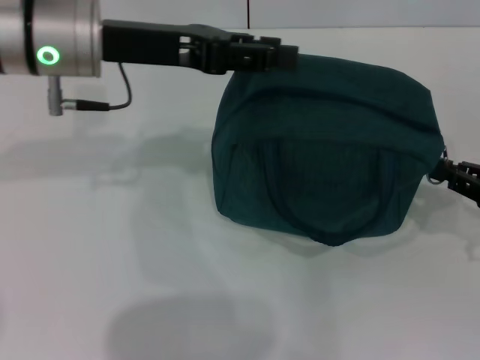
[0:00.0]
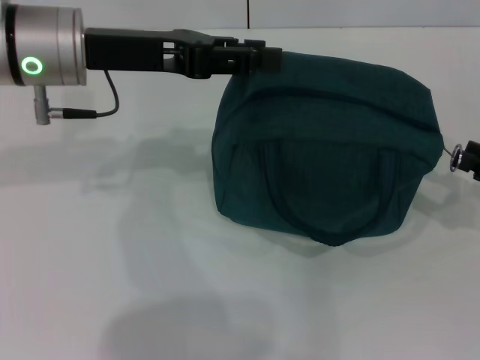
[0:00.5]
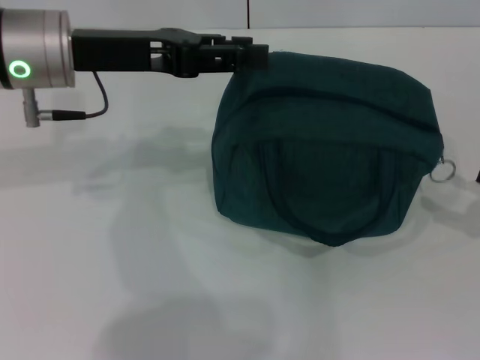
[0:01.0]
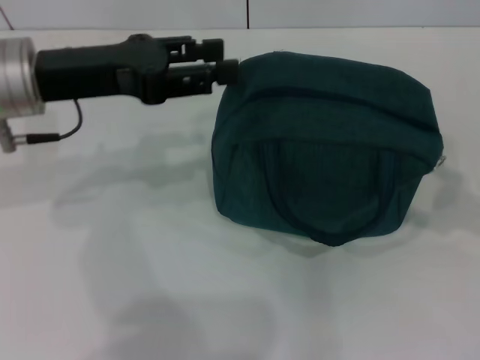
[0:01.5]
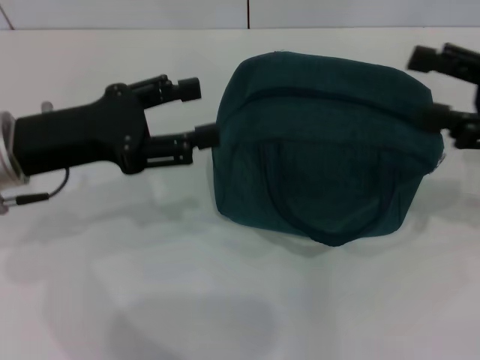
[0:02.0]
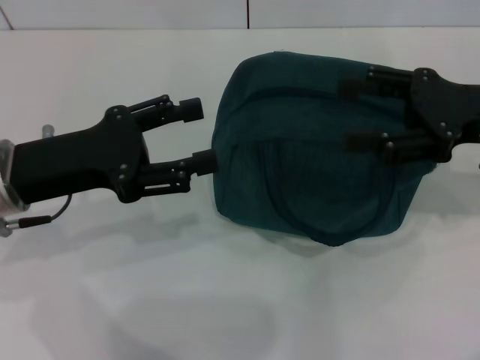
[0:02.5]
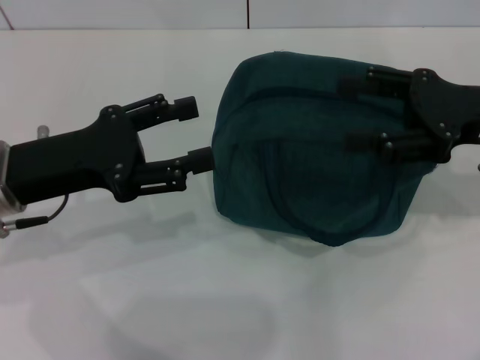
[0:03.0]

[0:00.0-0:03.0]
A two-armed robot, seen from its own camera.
0:00.0 to 0:01.5: The right gripper goes about 5 cm upward, and opens its fingers. The left gripper ends up about 5 cm from where it was.
0:01.5 to 0:03.0: The left gripper shifts approximately 10 cm backward and downward; the right gripper shifts about 15 cm to the left and forward.

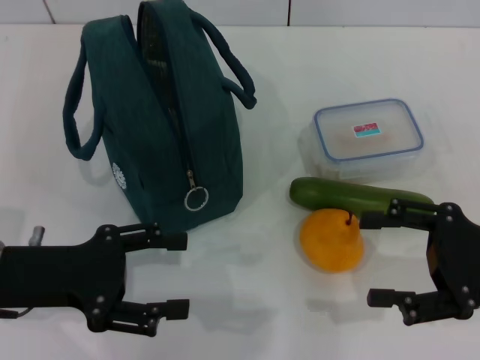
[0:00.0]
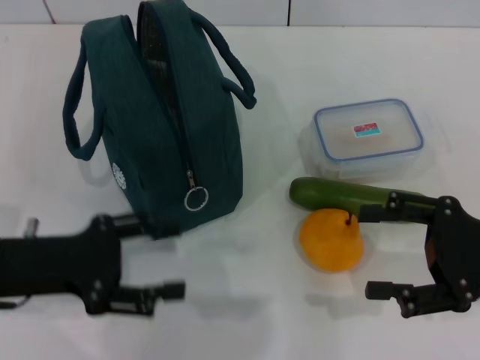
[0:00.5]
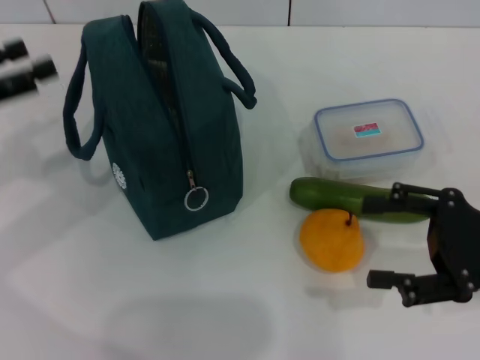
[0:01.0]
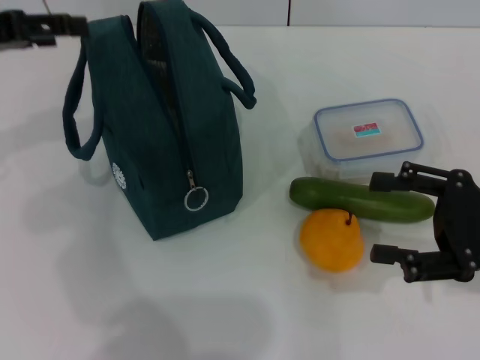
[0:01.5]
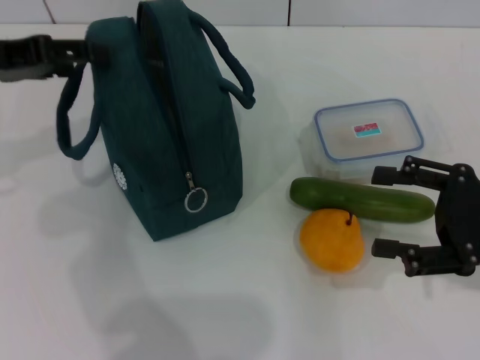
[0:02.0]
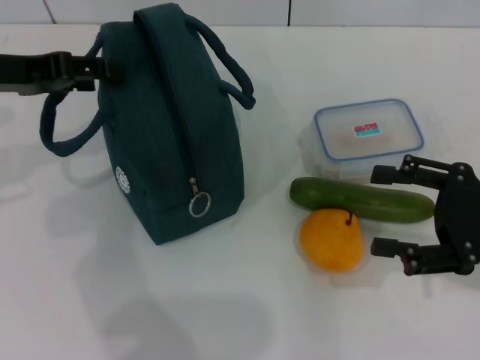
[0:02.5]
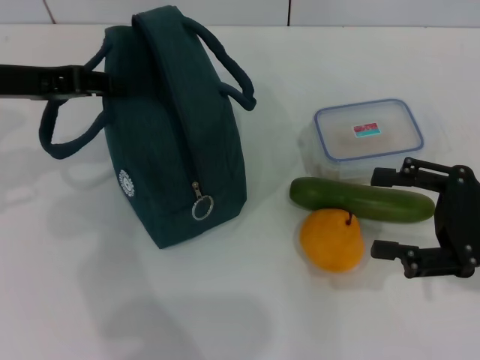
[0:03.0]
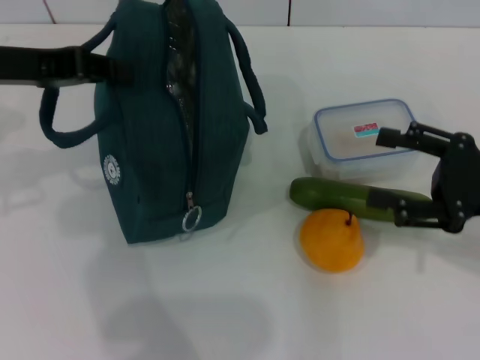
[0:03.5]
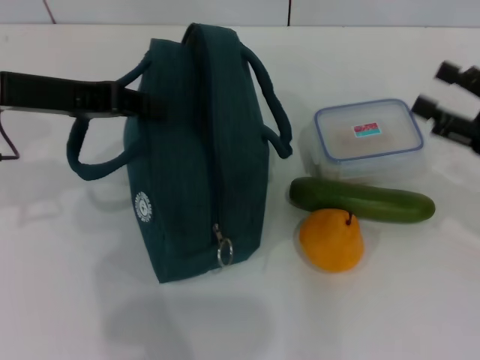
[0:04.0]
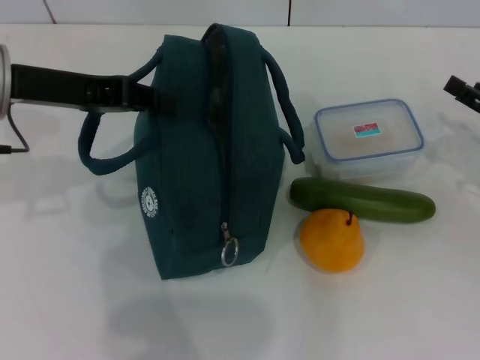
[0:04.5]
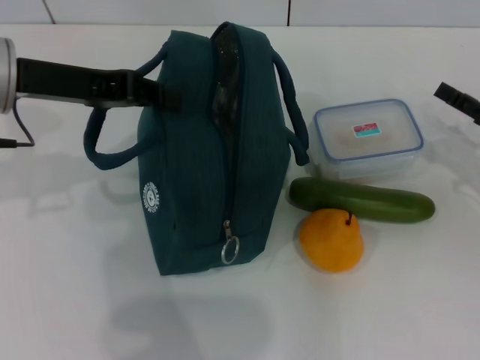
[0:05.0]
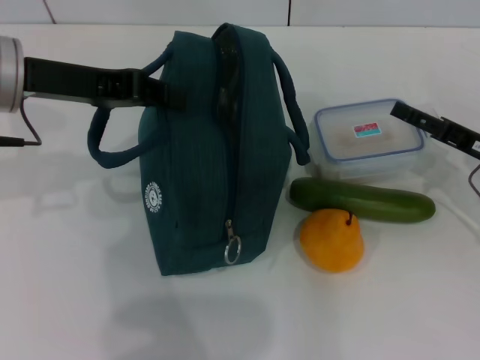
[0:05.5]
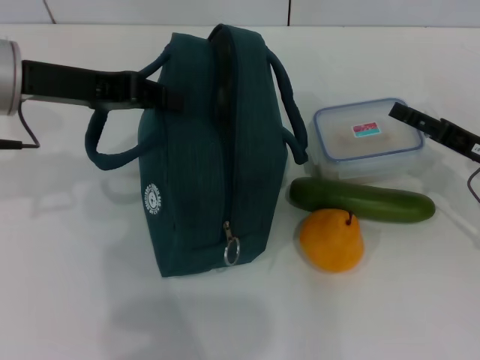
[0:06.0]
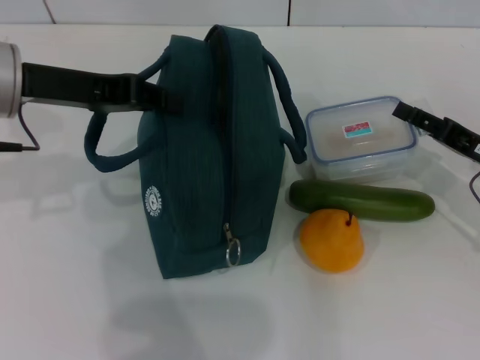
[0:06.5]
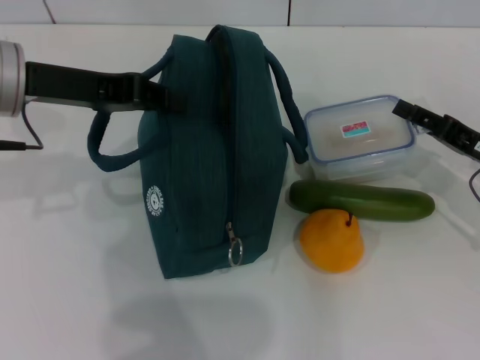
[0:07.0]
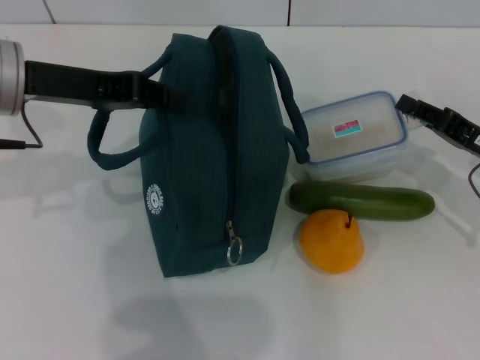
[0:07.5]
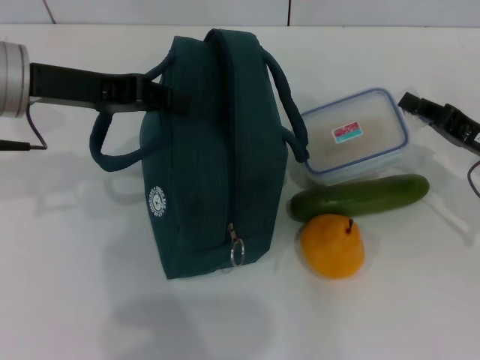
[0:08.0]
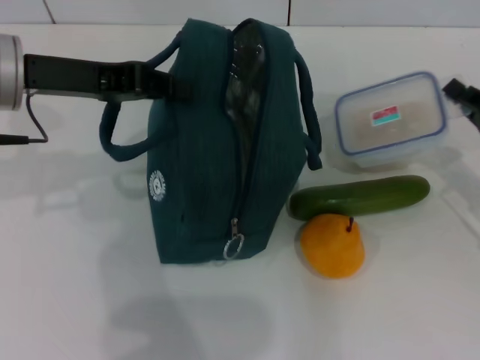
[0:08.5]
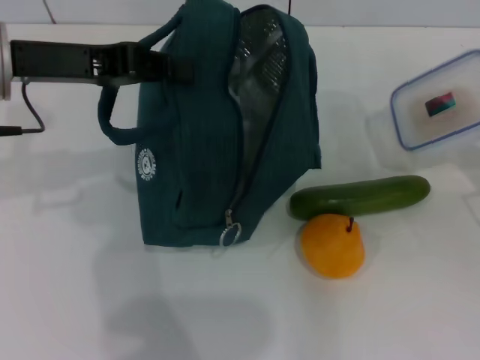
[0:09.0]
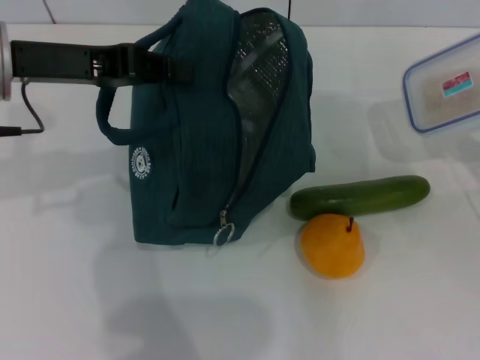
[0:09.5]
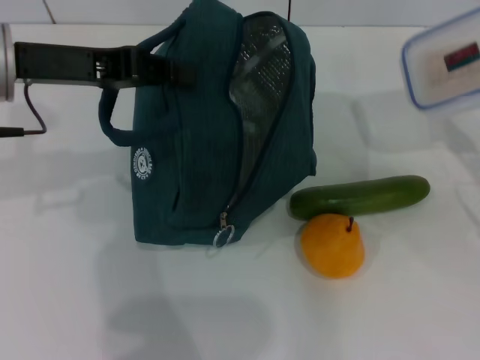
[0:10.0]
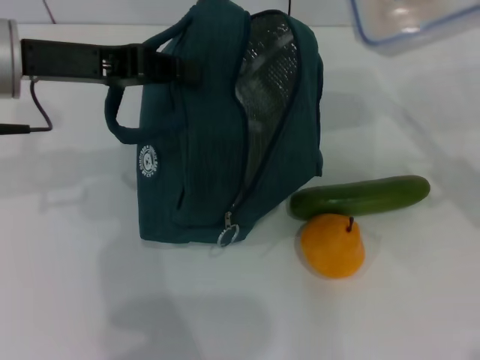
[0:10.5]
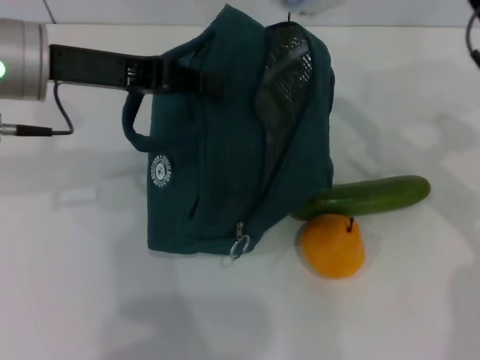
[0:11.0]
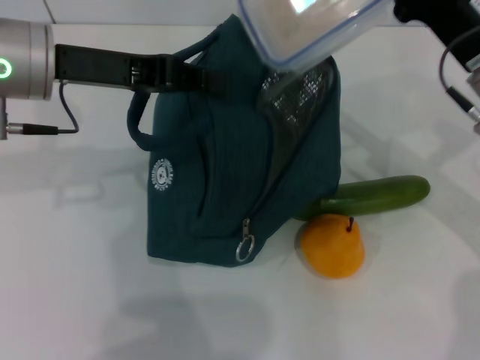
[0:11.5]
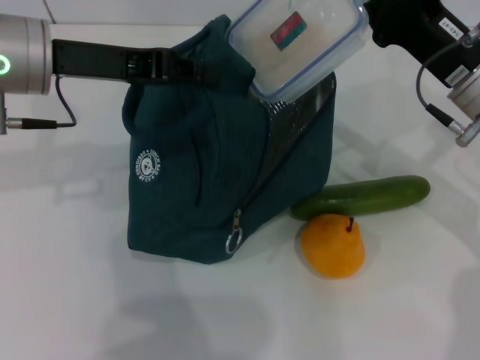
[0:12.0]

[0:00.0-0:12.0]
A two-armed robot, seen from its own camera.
Step, 0:00.0 to 0:03.5: Hold the lunch bag with your left hand.
Step, 0:04.0 to 0:08.0: Pick up the lunch box with your right hand.
0:00.0 to 0:02.0: The left gripper is displaced upward and forward by roughly 15 cm.
0:02.0 to 0:04.0: The left gripper shifts roughly 5 cm to the right, and closes its fingers.
0:04.0 to 0:06.0: The right gripper moves downward, about 5 cm.
0:06.0 to 0:08.0: The right gripper closes.
0:08.0 to 0:10.0: The right gripper shifts by some 5 cm.
0:10.0 to 0:12.0: The right gripper shifts approximately 15 cm to the left and forward.

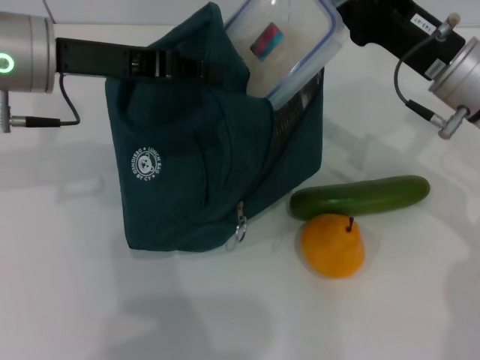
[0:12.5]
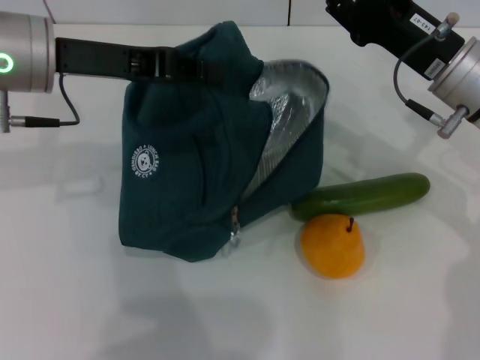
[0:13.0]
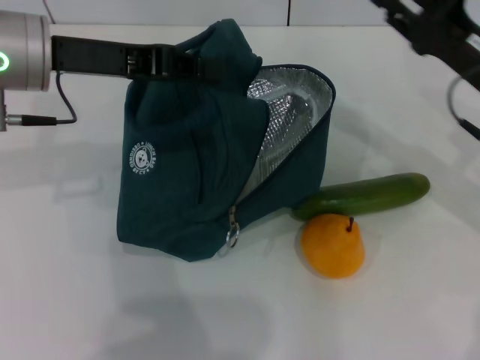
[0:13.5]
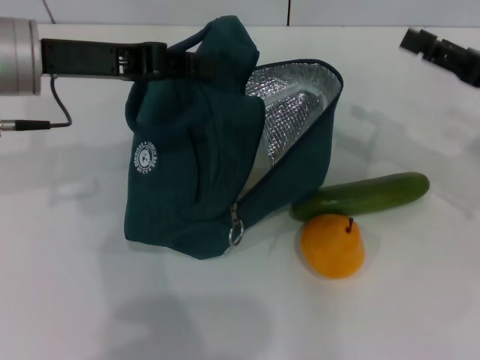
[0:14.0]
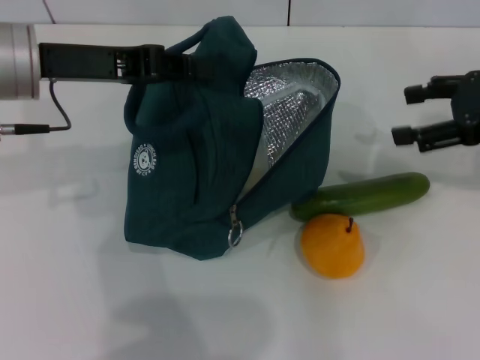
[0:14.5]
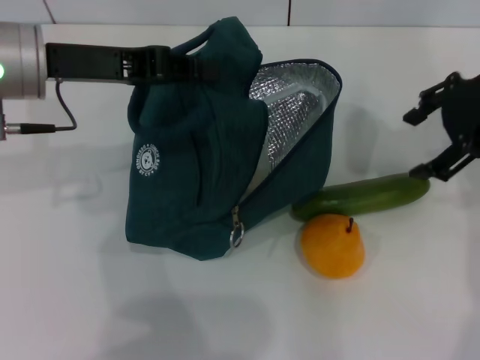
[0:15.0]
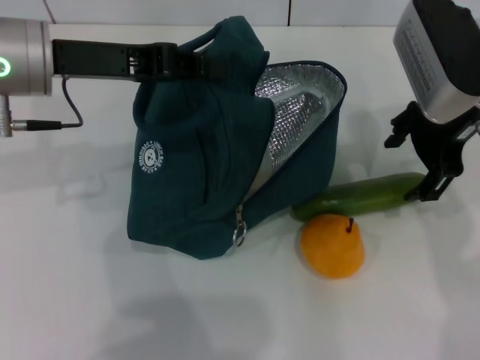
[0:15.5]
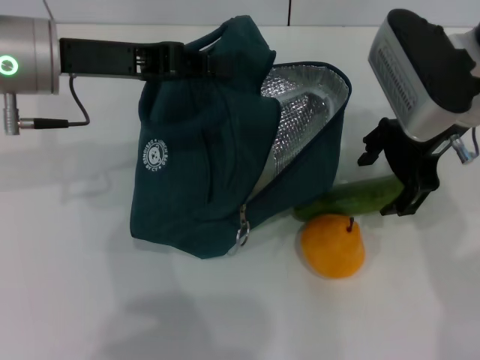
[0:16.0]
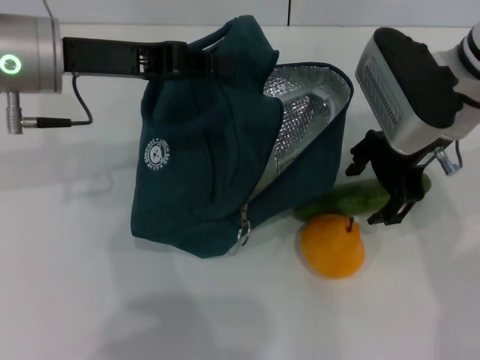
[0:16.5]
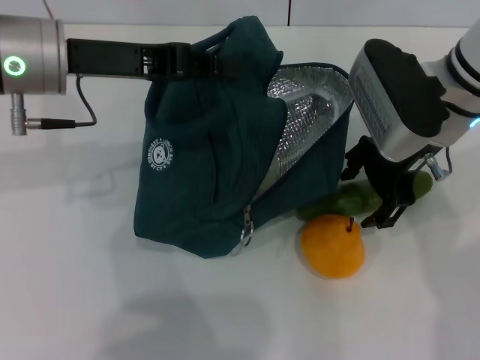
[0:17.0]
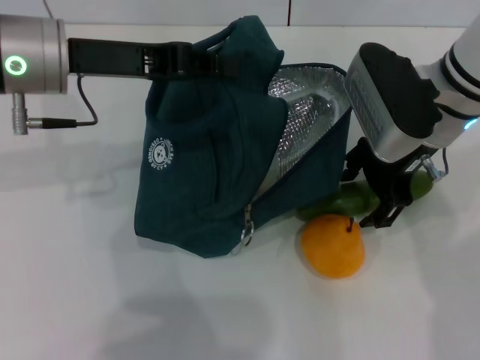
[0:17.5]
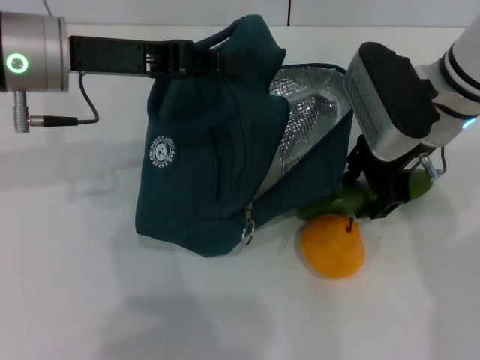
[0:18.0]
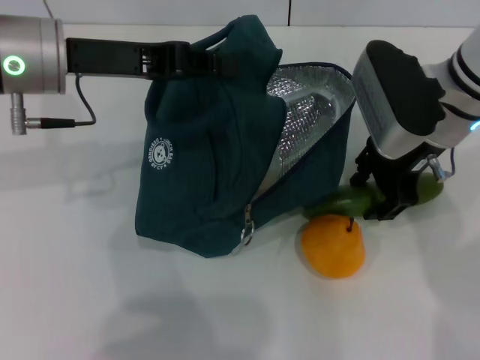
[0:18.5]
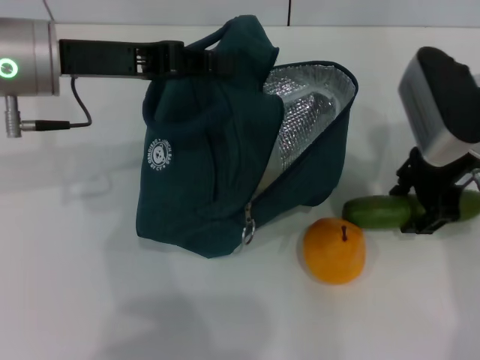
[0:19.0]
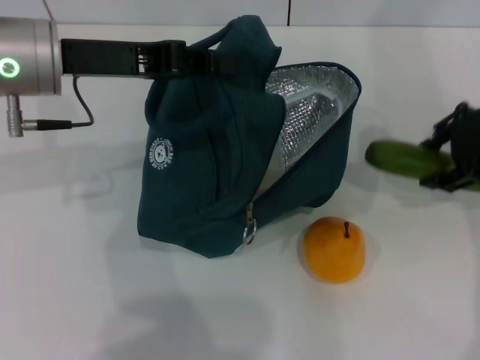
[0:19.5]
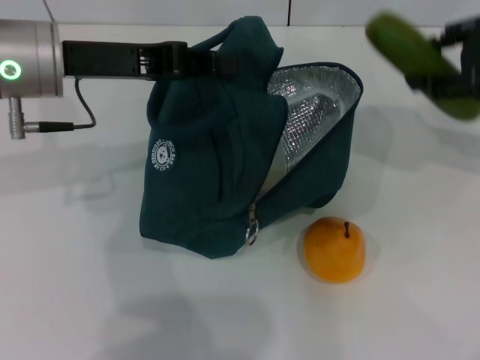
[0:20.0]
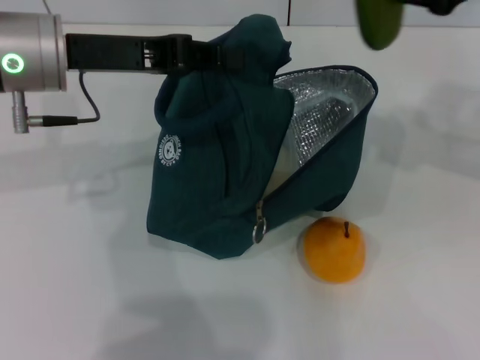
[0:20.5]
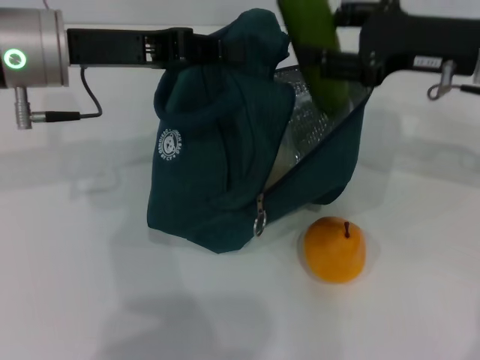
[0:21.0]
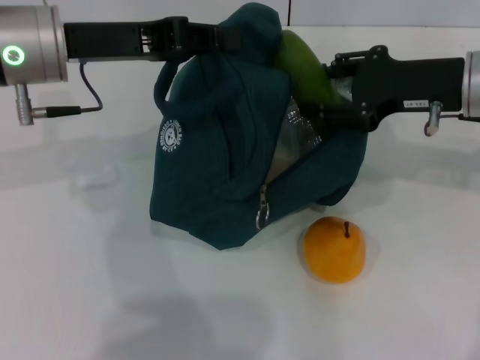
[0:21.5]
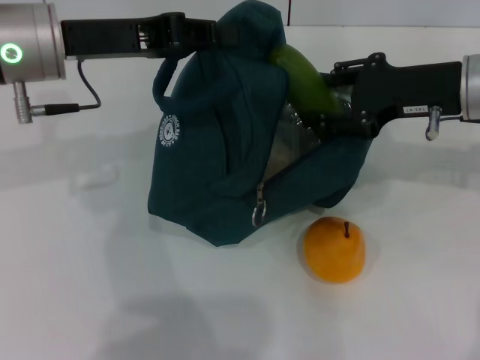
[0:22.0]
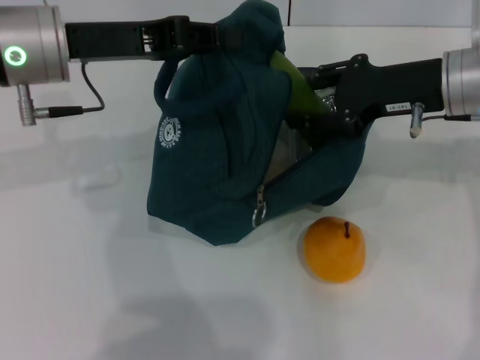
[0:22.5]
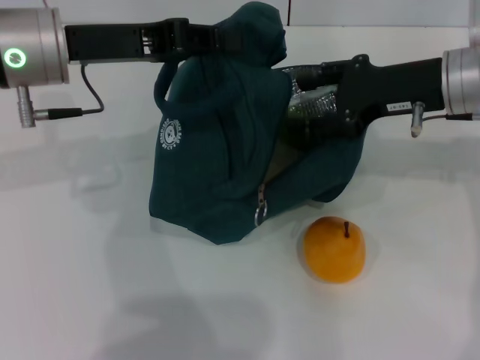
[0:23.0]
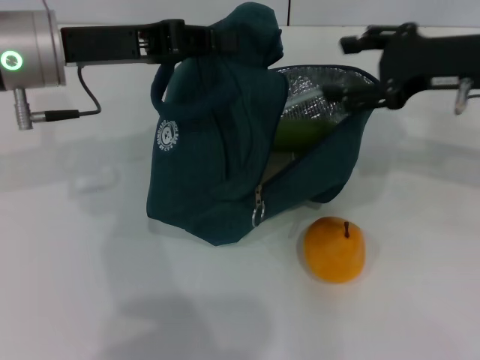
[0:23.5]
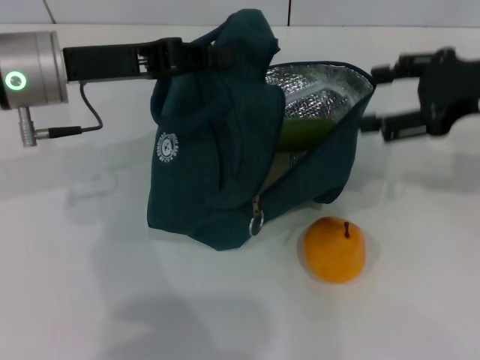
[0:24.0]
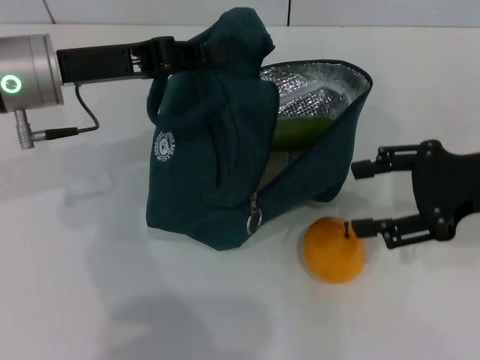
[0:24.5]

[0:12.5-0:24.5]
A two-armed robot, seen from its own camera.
Step, 0:14.0 to 0:18.5: Pick up the cucumber with your right hand.
Step, 0:19.0 to 0:23.5: Put the cucumber into the lunch bag with your right hand.
0:12.5 to 0:14.5: The right gripper moves to the right and upward, about 10 cm, and opens.
0:14.5 to 0:16.5: The right gripper is displaced to the left by some 15 cm.
0:16.5 to 0:18.5: The grippers move only a little.
0:18.5 to 0:20.5: The right gripper goes some 15 cm to the right and upward.
0:20.5 to 0:22.5: The right gripper heads downward and to the left, covering about 10 cm.
0:22.5 to 0:24.5: The right gripper moves backward and to the right, approximately 10 cm.
